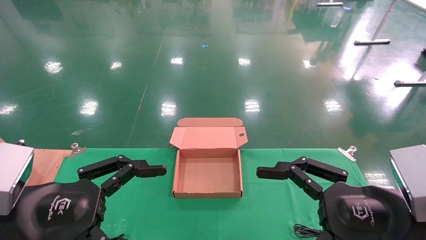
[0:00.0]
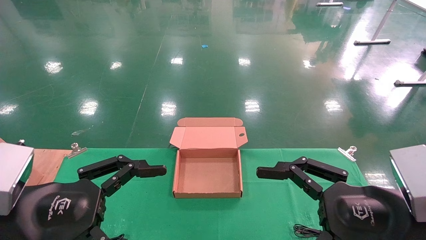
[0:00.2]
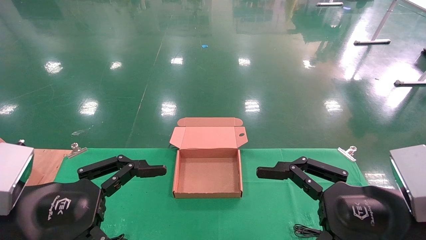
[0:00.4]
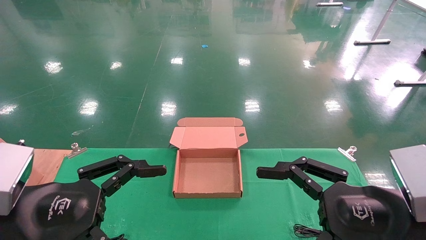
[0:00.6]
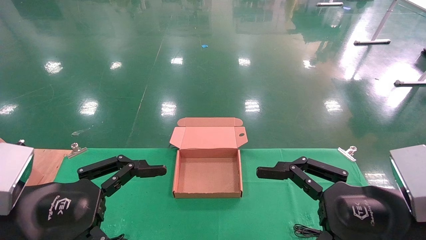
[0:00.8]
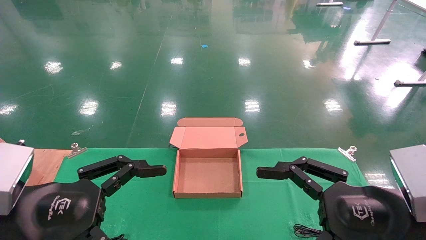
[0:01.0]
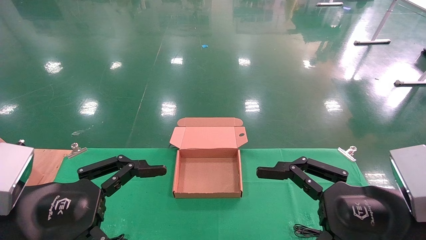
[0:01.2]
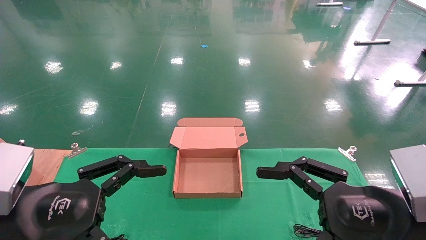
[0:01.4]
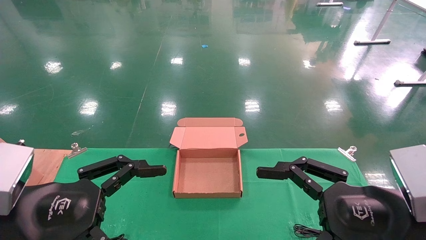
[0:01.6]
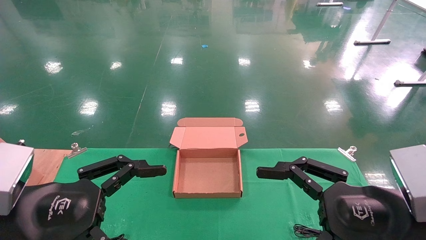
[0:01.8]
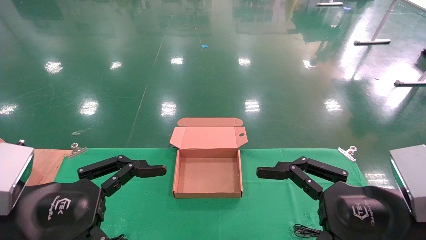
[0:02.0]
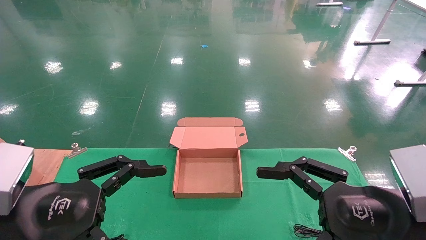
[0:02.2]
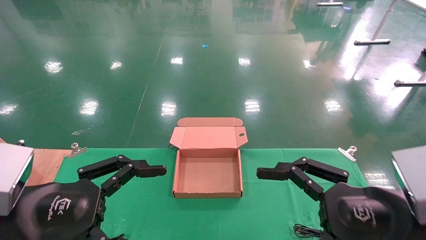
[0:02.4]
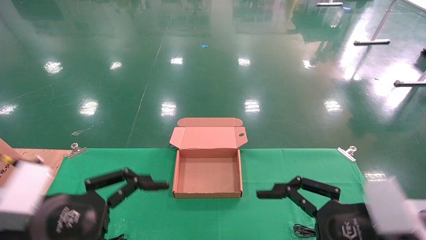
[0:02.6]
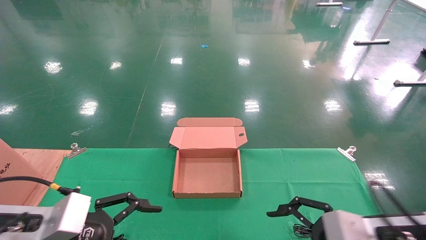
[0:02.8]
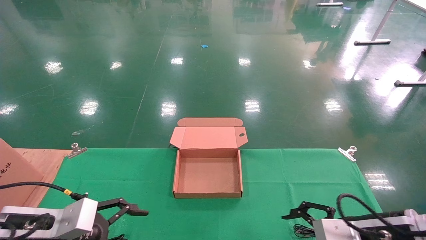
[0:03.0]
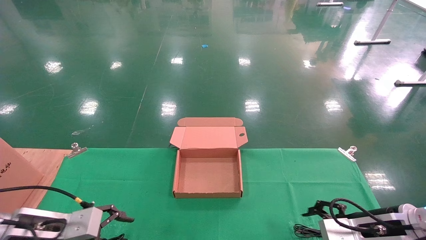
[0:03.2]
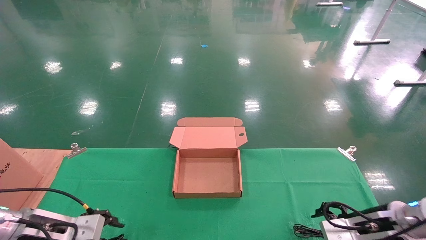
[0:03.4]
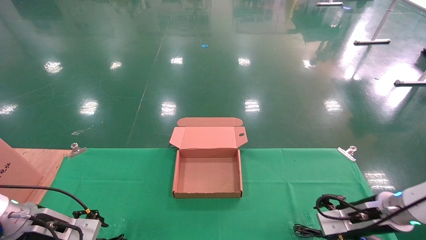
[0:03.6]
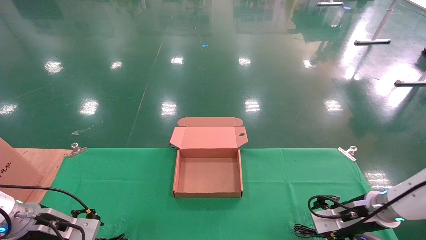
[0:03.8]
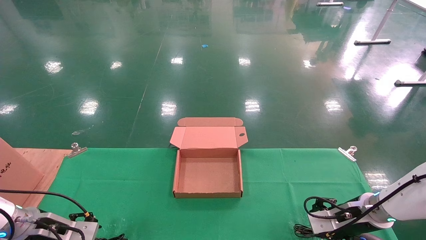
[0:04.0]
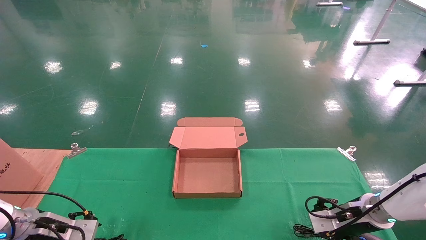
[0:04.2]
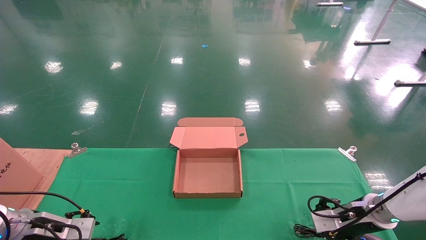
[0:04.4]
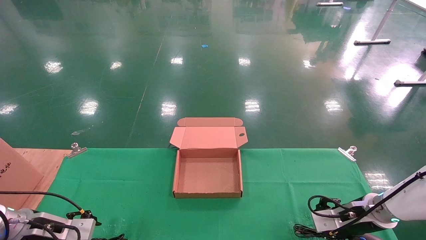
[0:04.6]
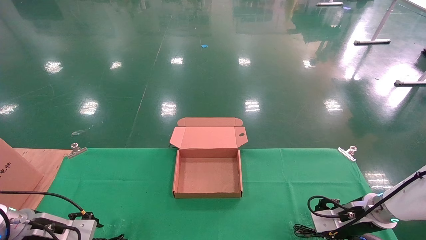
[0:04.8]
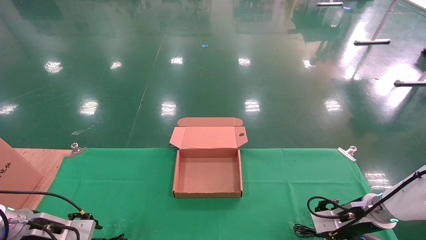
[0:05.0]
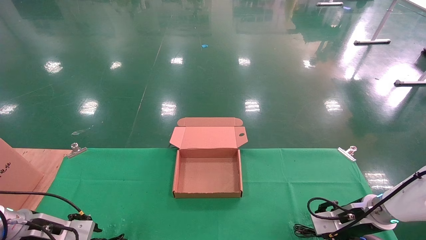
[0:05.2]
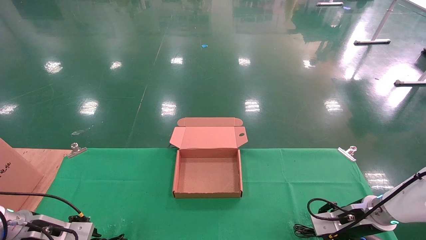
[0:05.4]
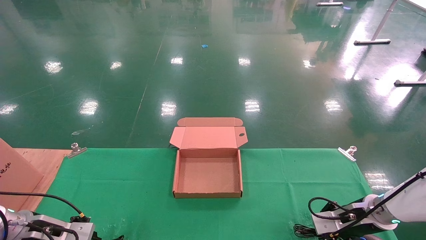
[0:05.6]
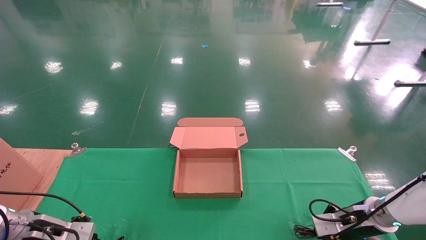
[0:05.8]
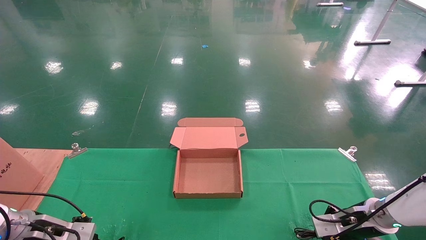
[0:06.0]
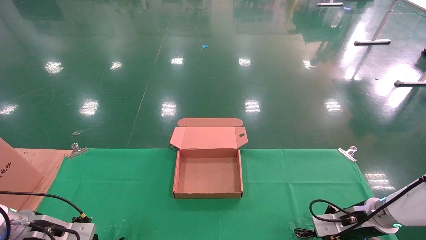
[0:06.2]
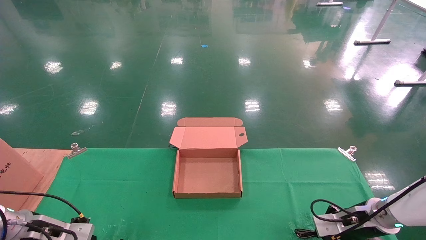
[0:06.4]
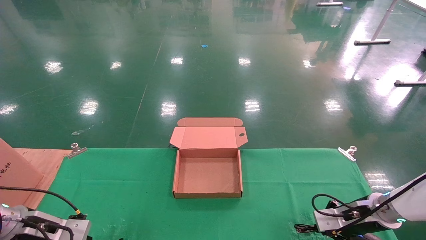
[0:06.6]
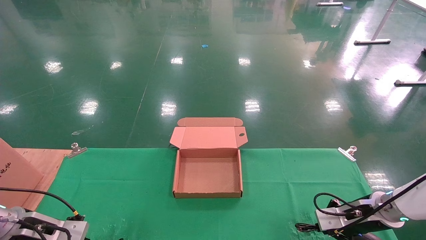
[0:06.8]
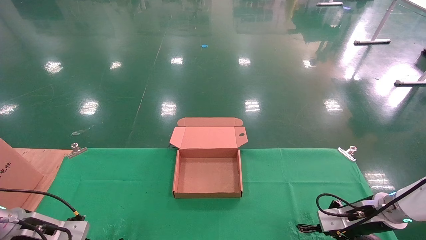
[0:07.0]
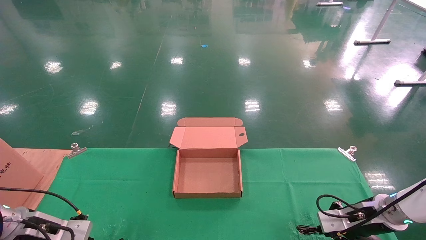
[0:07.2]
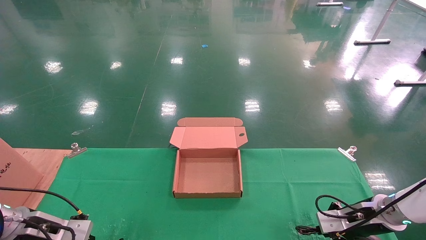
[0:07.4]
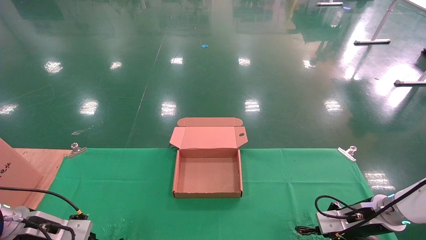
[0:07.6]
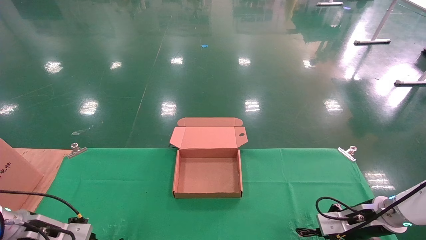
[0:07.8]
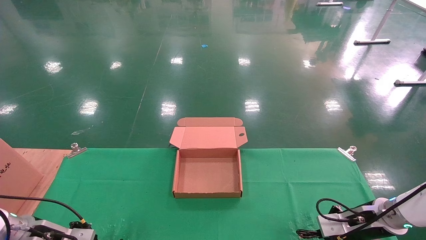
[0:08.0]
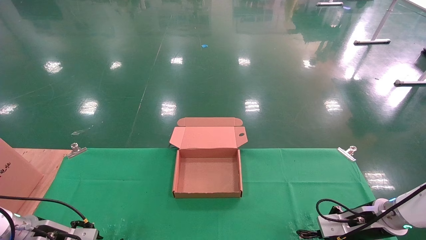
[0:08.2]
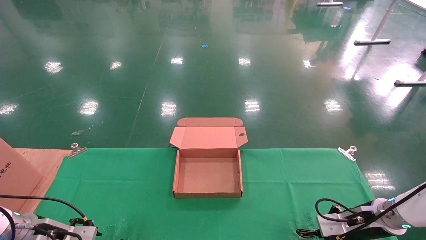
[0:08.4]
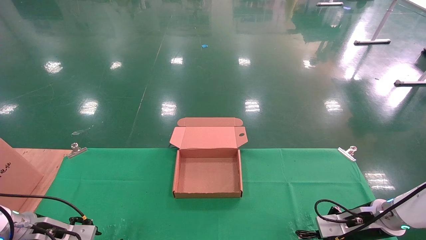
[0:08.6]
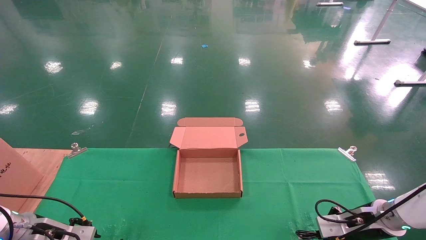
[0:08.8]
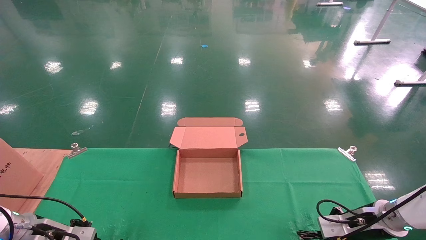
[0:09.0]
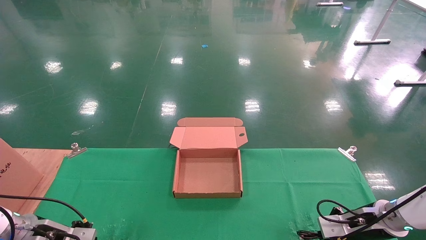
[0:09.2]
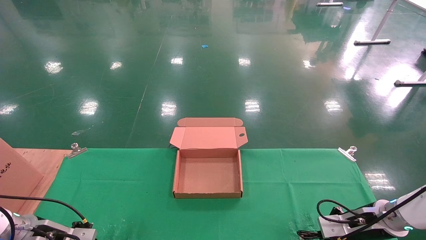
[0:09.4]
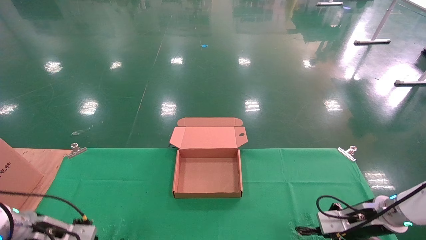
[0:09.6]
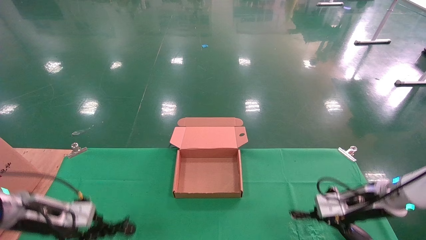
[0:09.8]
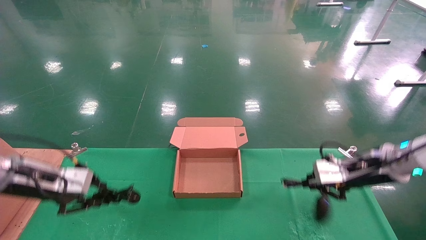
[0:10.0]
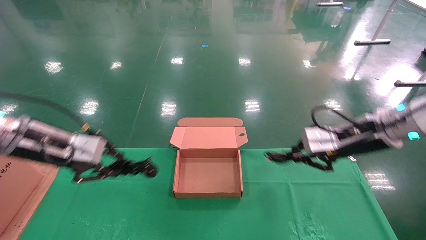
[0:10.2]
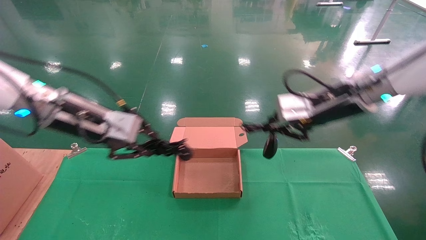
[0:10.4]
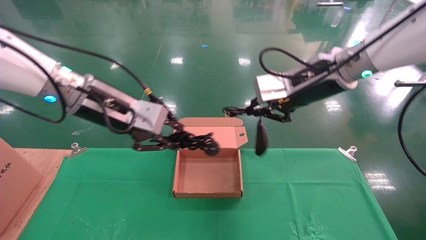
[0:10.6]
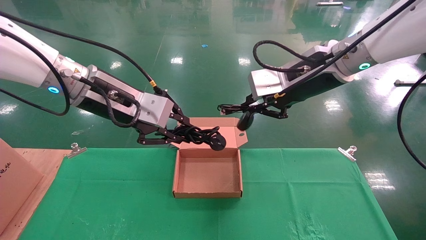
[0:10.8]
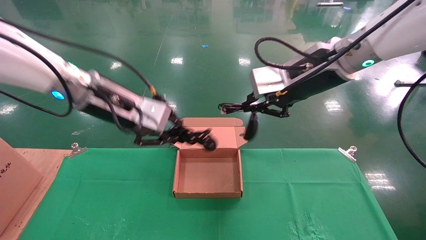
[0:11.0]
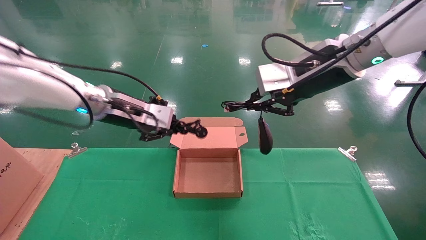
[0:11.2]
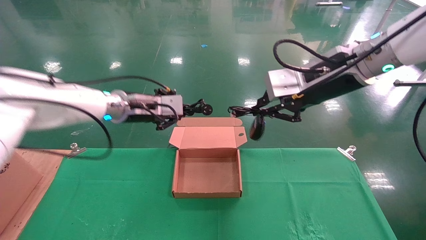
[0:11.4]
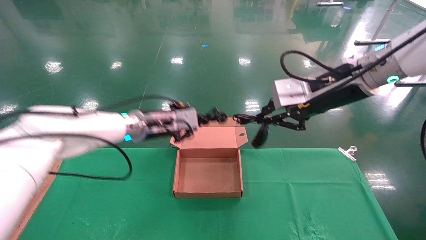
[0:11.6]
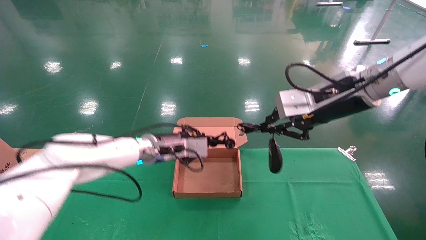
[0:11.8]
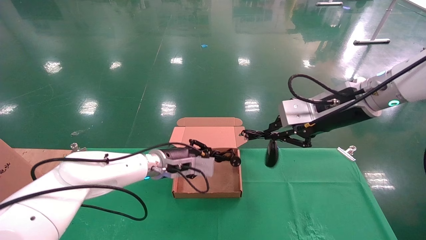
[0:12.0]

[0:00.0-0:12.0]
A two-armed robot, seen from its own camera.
Step, 0:03.0 to 0:10.6: Grab and lift both the mouse and power cord from the accessory packaging area at the same time.
0:00.0 to 0:01.6: Neither gripper changes place.
0:01.6 to 0:03.0: The left gripper goes some 10 cm downward and forward. The right gripper is displaced forward and downward by about 10 cm.
0:03.0 to 0:04.4: The left gripper is displaced forward, to the left and downward by approximately 15 cm; the right gripper shifts roughly 15 cm forward and downward.
0:04.4 to 0:06.0: The left gripper closes its fingers. The right gripper closes up.
0:06.0 to 0:07.6: The grippers stay close to where they were, moving slightly.
0:07.6 to 0:09.0: The left gripper opens up.
0:09.0 to 0:10.4: The right gripper travels upward and to the left by some 30 cm. The left gripper moves upward and to the right, approximately 30 cm, and closes up.
0:10.4 to 0:12.0: The left gripper travels downward, to the right and forward by some 25 cm.

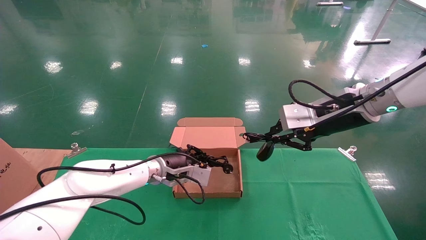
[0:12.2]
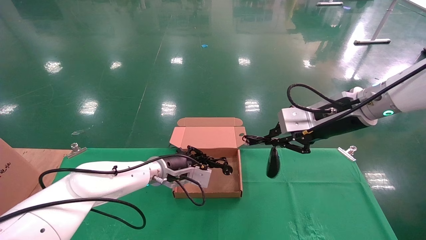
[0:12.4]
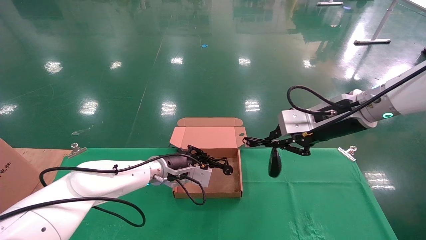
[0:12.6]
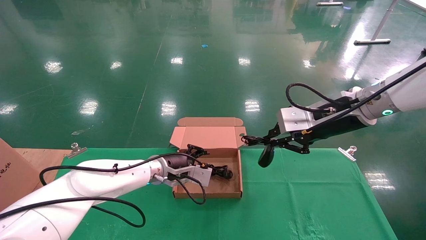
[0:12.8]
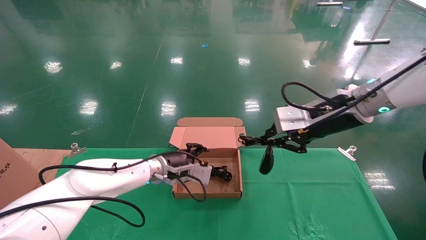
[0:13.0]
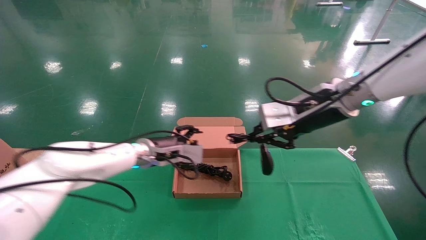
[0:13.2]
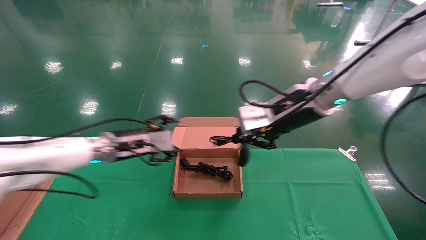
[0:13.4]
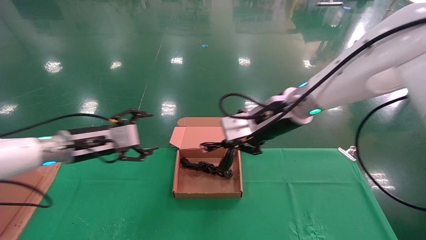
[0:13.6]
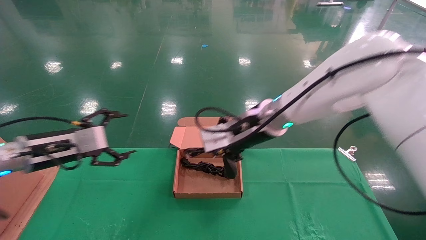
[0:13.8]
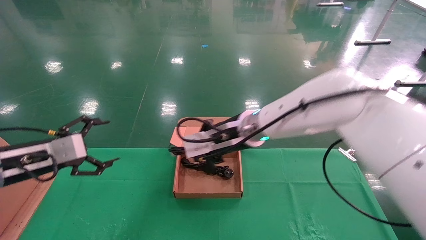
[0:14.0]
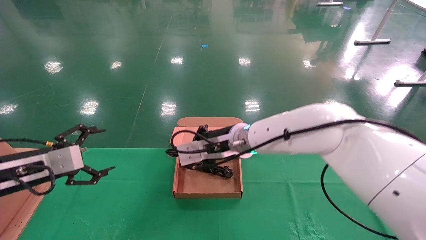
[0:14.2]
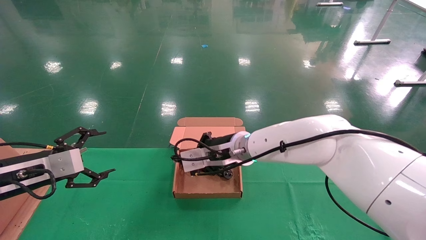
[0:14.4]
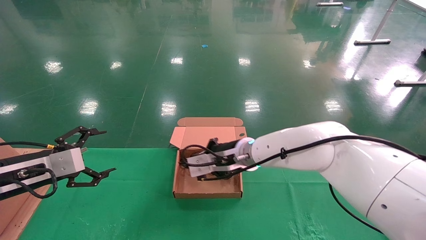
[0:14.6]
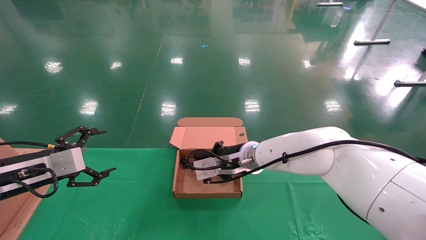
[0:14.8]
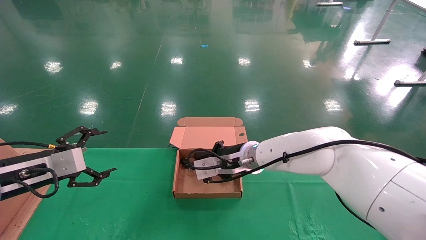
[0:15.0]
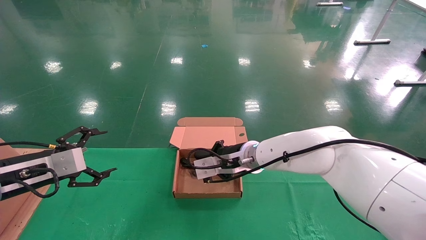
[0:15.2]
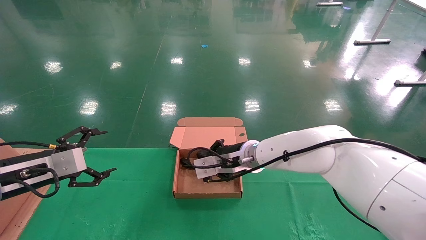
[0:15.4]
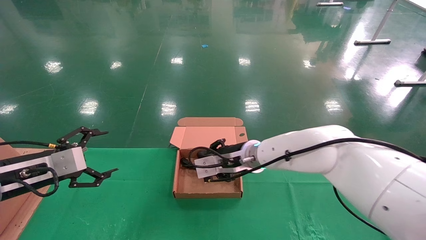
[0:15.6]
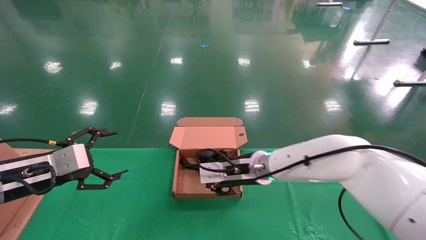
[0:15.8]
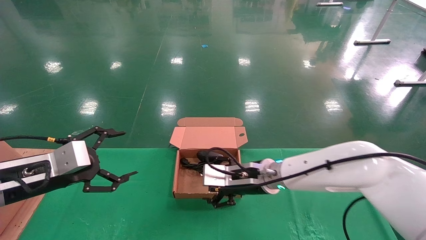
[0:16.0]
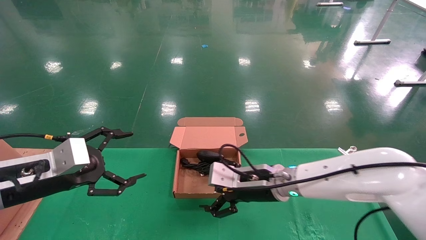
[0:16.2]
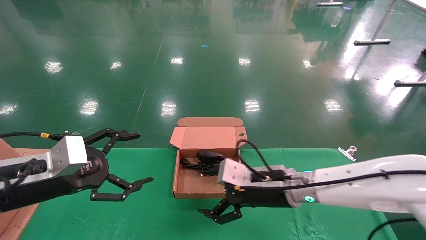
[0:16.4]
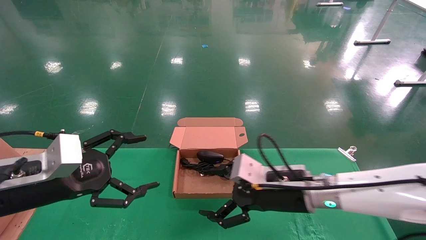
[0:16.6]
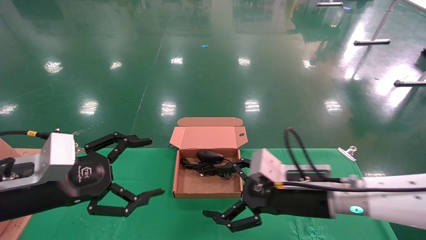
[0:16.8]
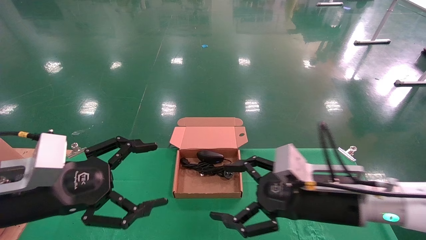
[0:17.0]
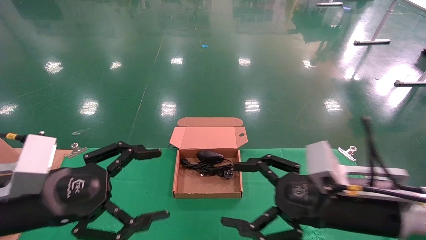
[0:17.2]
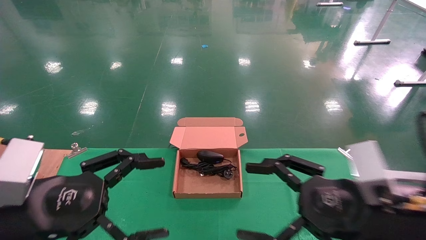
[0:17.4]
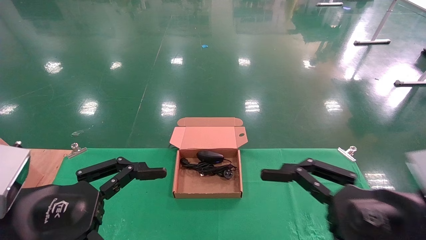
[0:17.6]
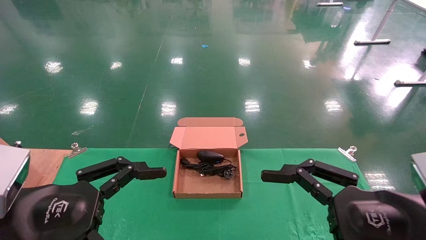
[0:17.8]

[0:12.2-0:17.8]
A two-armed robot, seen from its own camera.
Step, 0:12.2 to 0:15.8: Place the mouse and power cord into the box.
0:12.2 to 0:13.6: The right gripper moves to the left, some 10 cm, while the left gripper heads to the left, upward and backward, covering some 20 cm, and opens.
0:13.6 to 0:15.0: The right gripper is displaced downward, to the left and forward by approximately 15 cm; the left gripper goes roughly 10 cm backward and to the left.
0:15.0 to 0:16.4: The right gripper moves backward and to the right, approximately 10 cm, and opens its fingers, while the left gripper heads to the right and backward, covering approximately 10 cm.
0:16.4 to 0:17.8: The right gripper moves backward and to the right, approximately 25 cm. Meanwhile the left gripper goes some 10 cm backward.
